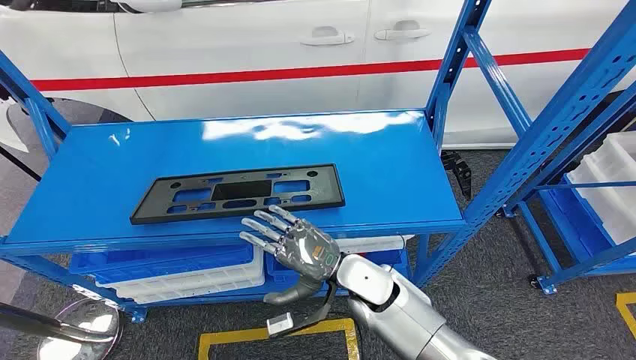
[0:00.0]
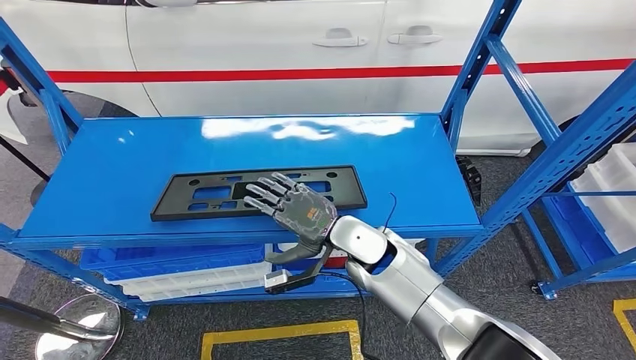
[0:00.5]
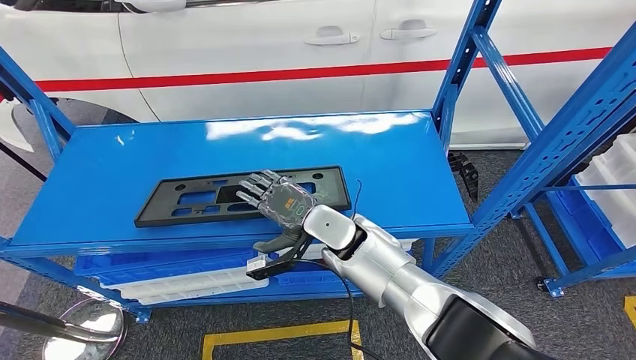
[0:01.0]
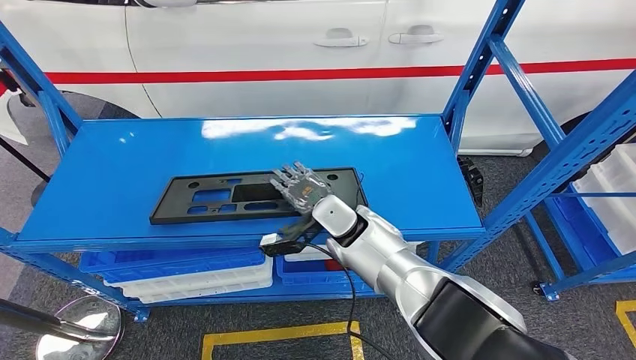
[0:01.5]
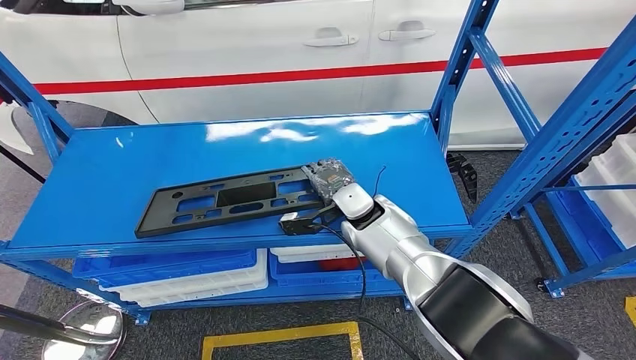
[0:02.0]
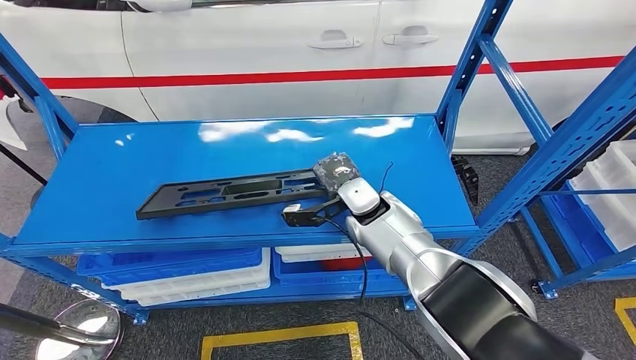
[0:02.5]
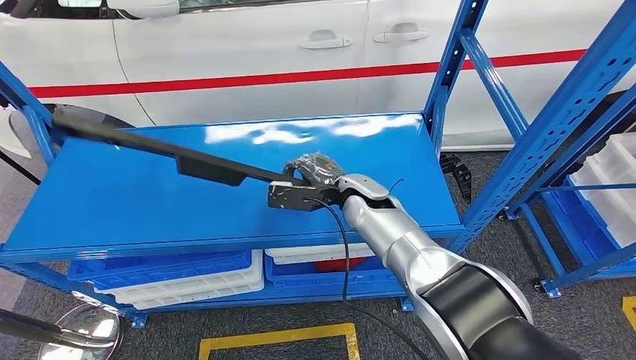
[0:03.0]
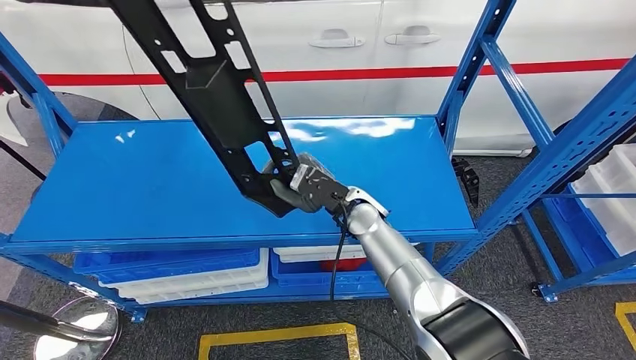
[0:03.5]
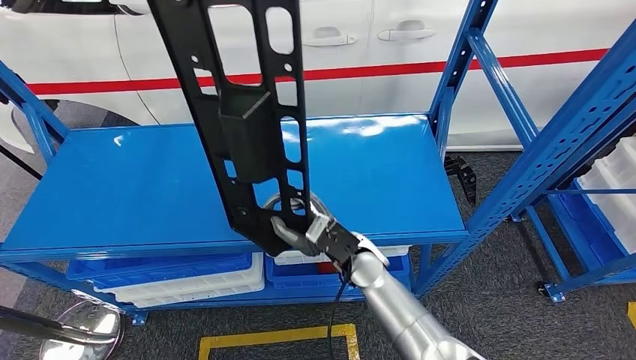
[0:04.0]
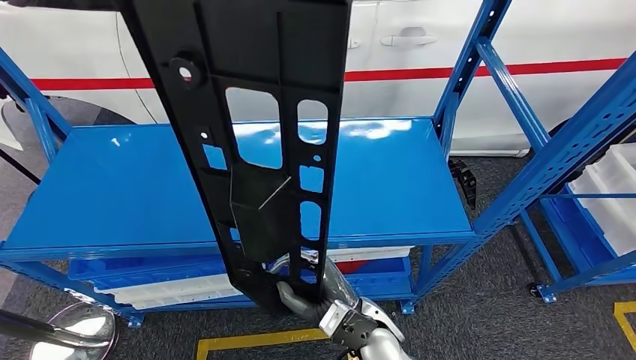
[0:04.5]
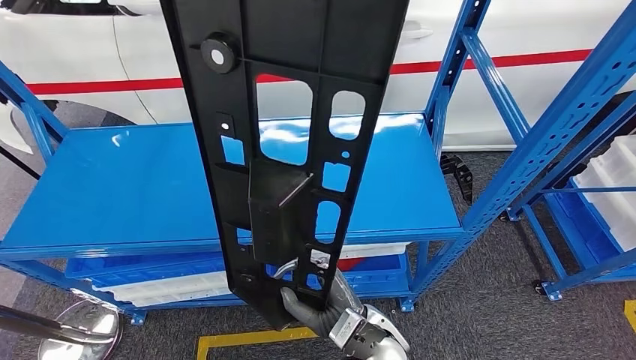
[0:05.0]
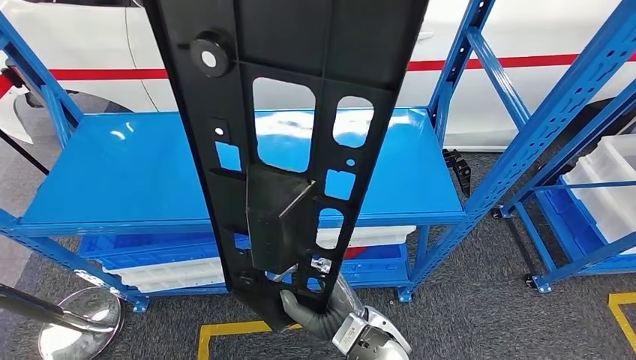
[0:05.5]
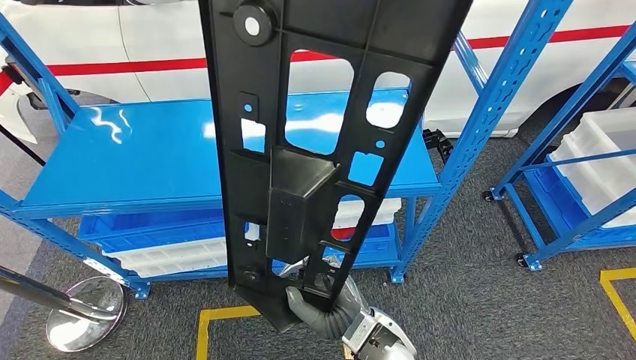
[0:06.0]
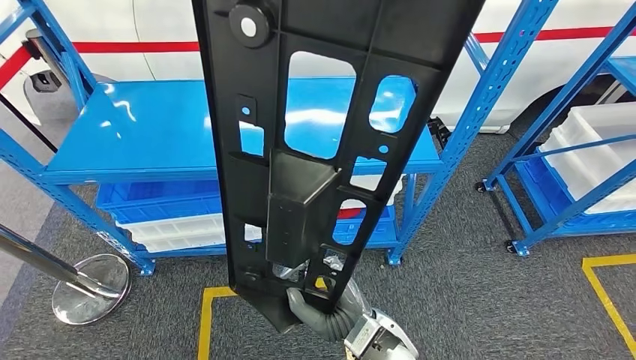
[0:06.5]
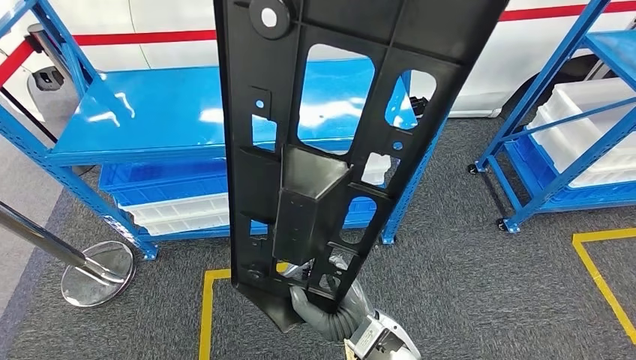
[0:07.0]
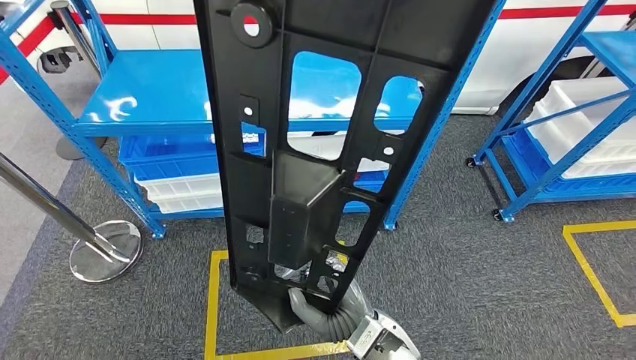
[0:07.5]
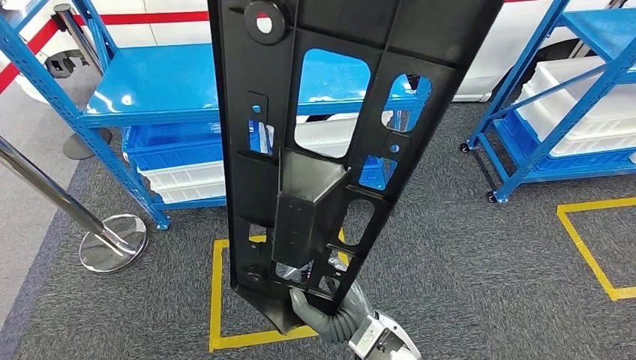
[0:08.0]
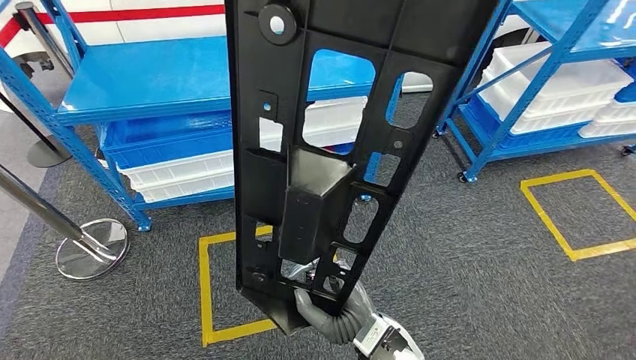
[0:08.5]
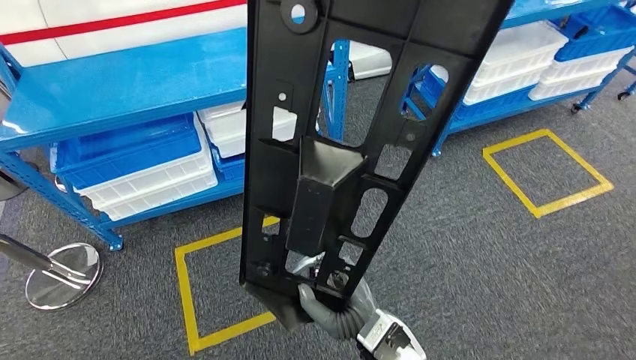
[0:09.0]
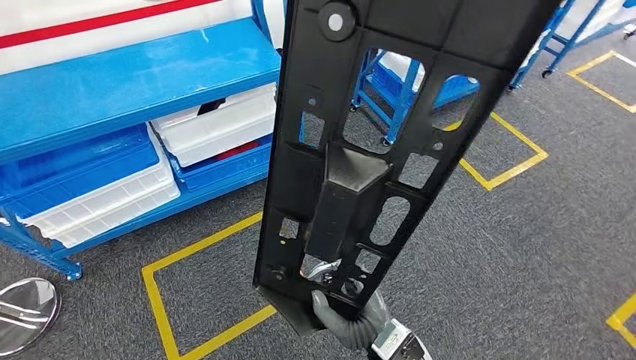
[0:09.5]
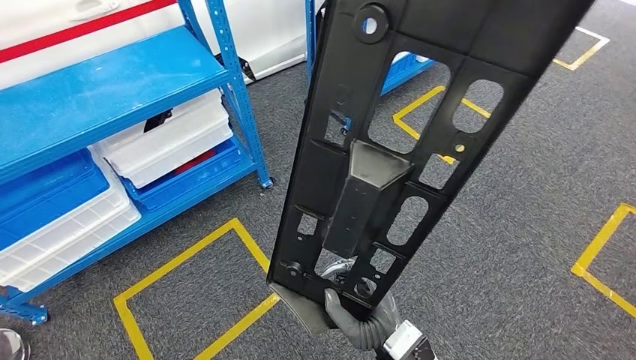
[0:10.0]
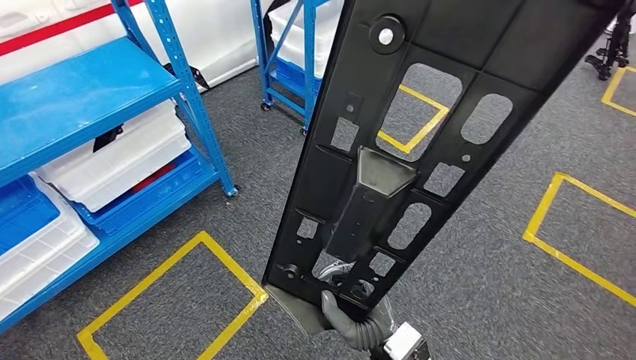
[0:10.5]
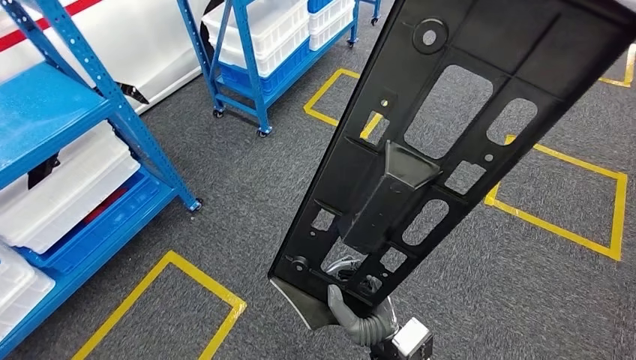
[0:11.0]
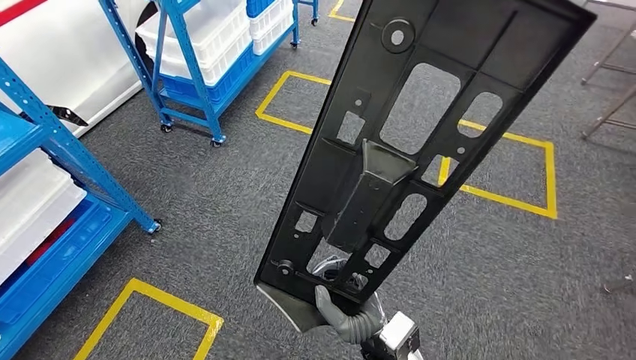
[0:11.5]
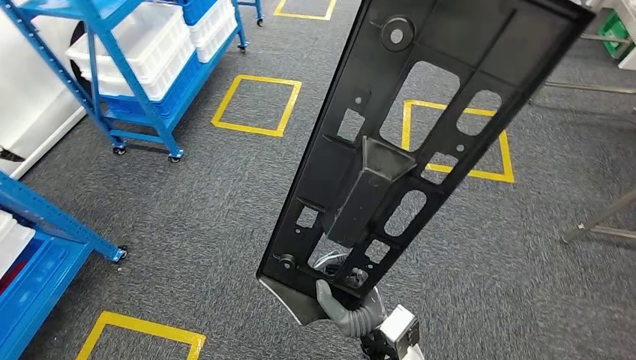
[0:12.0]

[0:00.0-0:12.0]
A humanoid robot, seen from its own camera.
Step, 0:00.0 to 0:04.5: Pick up the large material from the shelf.

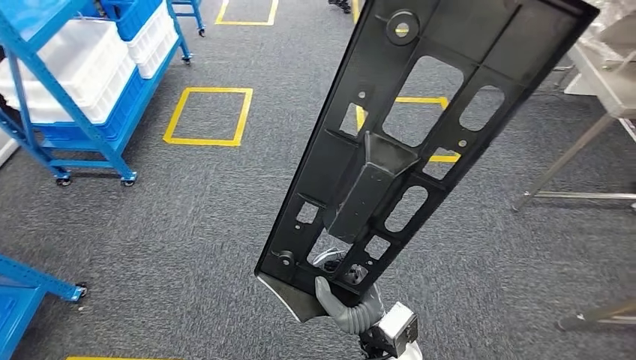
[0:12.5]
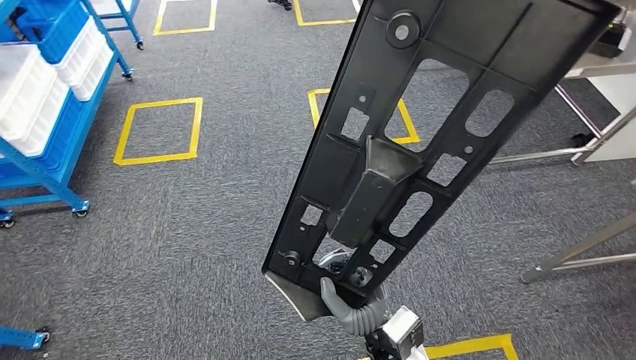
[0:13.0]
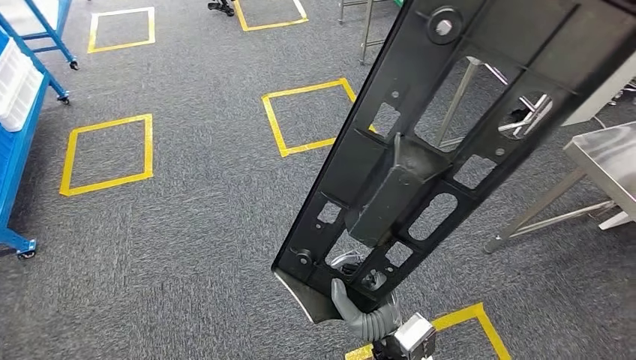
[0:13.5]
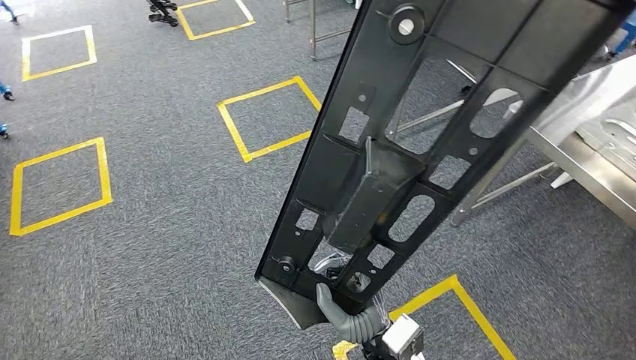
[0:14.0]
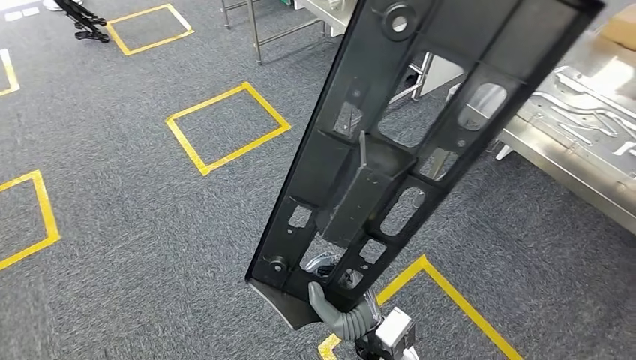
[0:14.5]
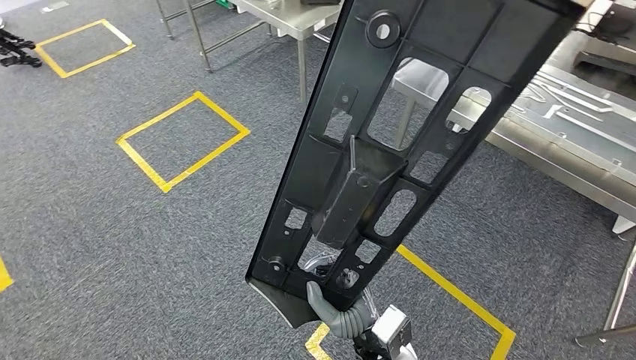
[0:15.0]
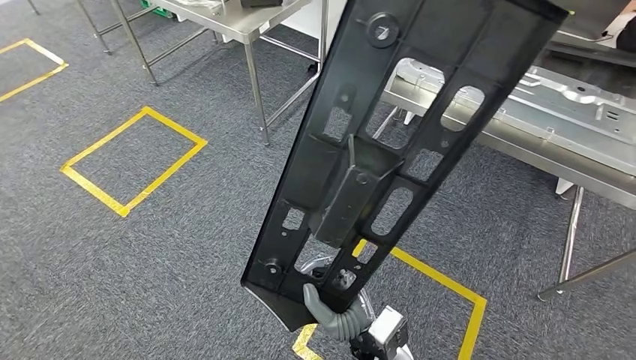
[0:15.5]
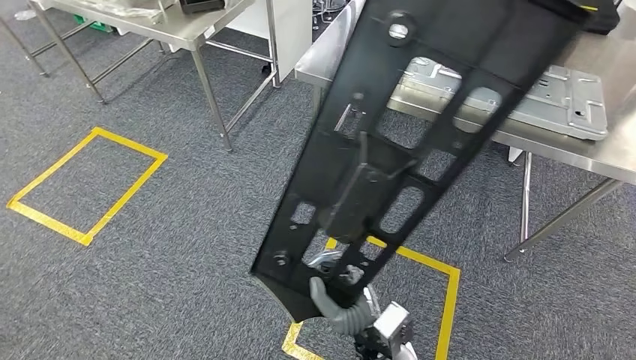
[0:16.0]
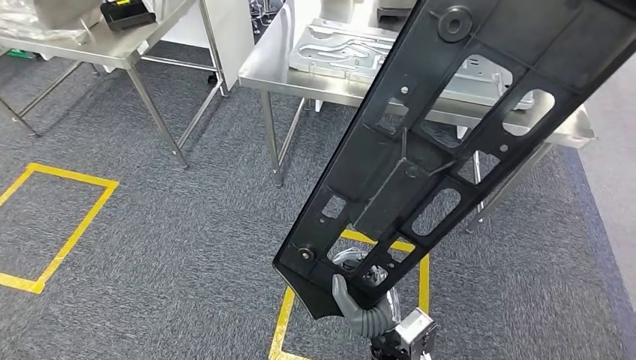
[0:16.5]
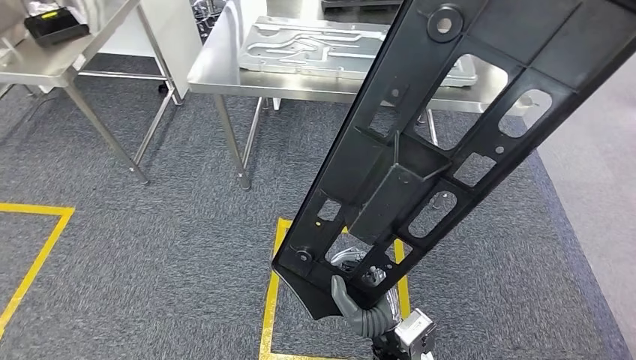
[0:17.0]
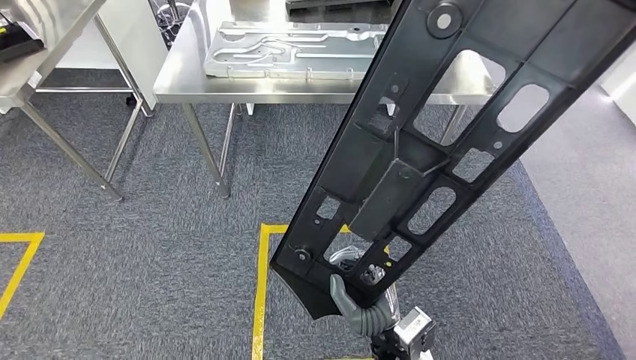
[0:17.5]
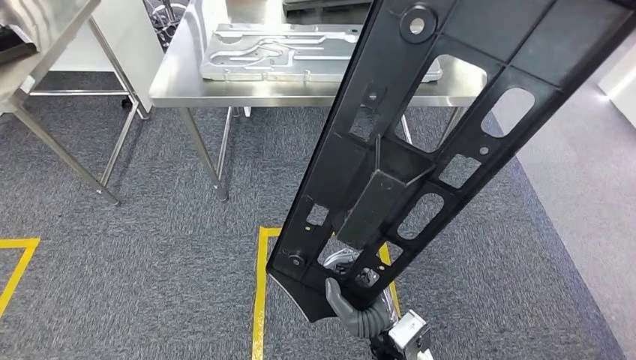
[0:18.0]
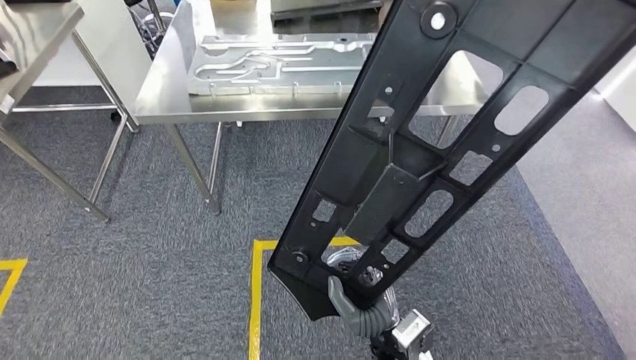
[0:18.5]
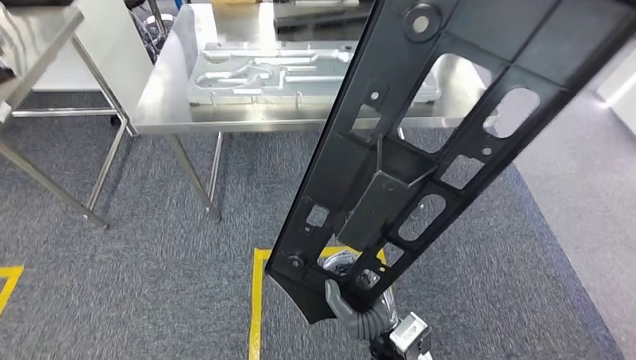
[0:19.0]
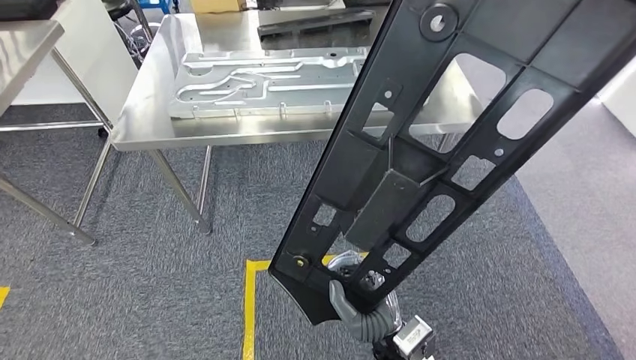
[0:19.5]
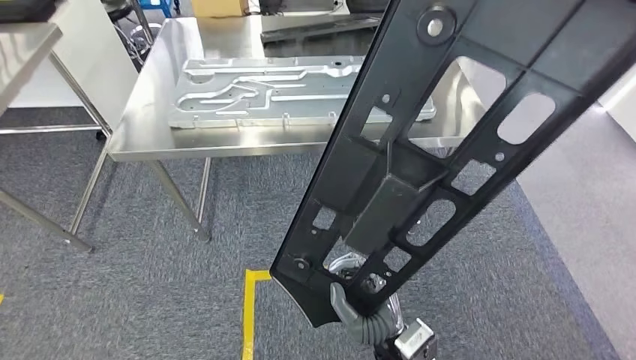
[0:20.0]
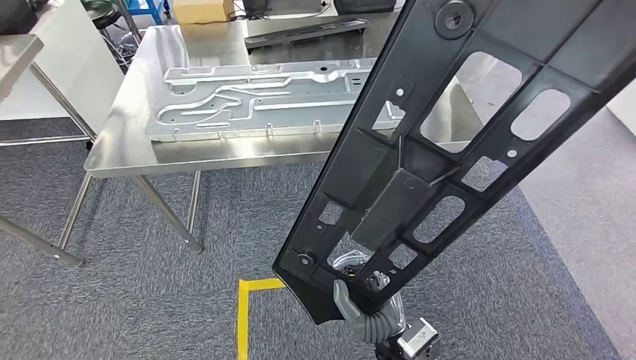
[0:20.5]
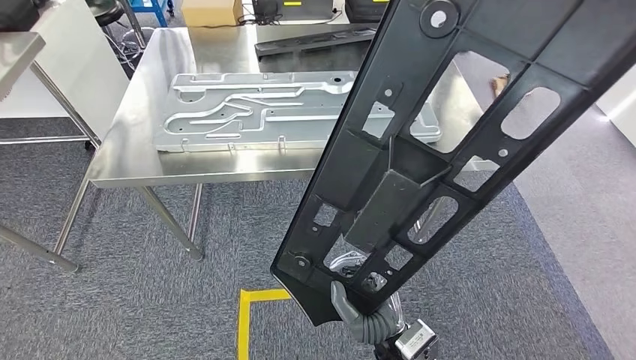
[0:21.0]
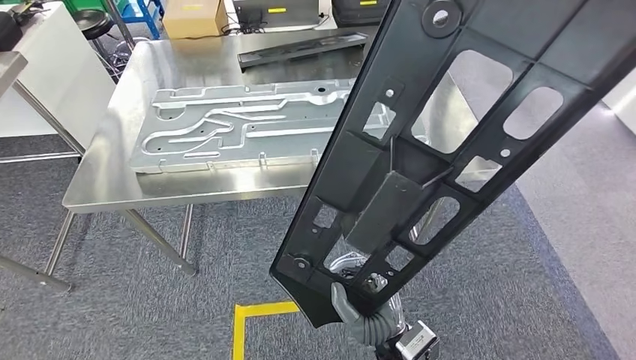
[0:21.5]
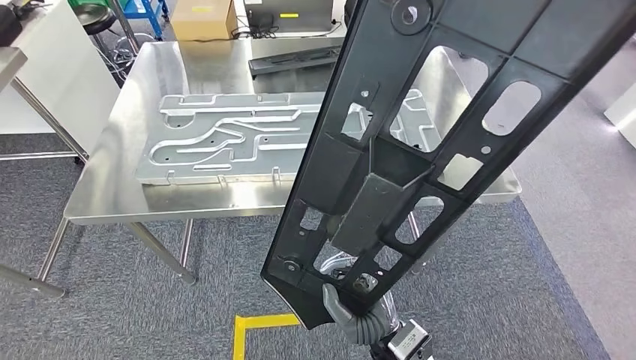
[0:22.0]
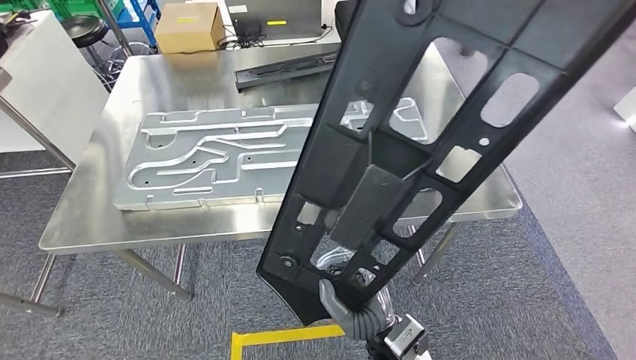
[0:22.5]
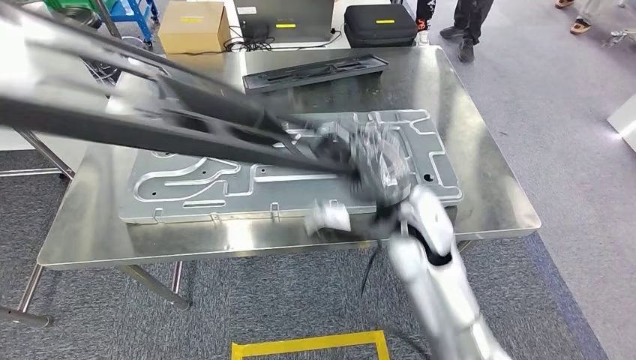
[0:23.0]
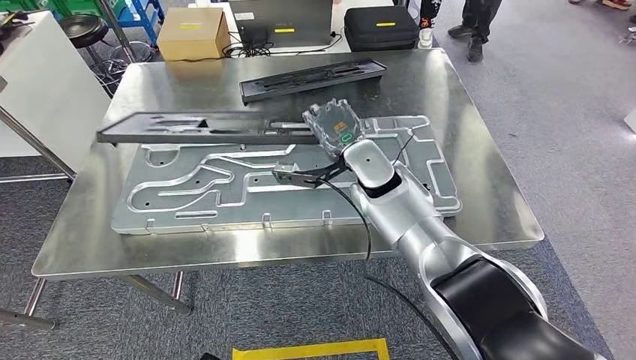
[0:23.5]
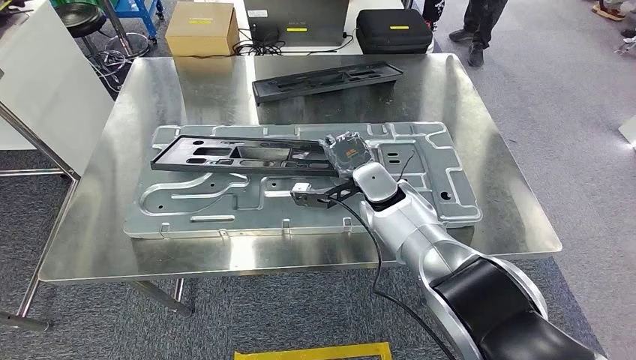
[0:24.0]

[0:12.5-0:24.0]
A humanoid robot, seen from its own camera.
Step, 0:12.5 to 0:22.5: Move the large material to the workbench.
